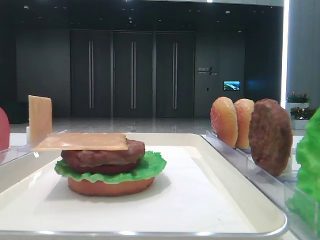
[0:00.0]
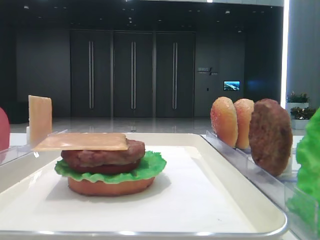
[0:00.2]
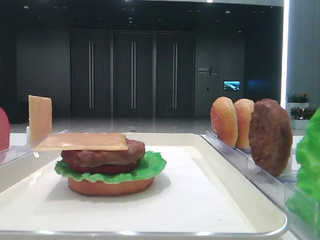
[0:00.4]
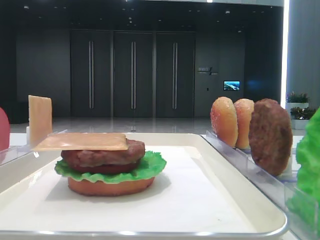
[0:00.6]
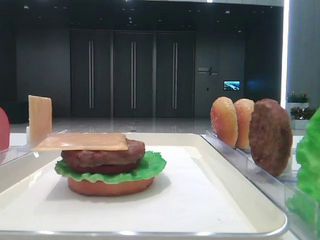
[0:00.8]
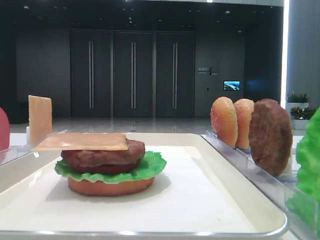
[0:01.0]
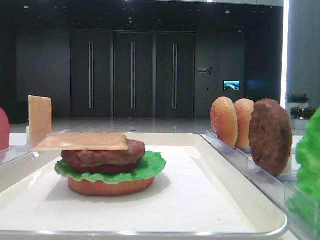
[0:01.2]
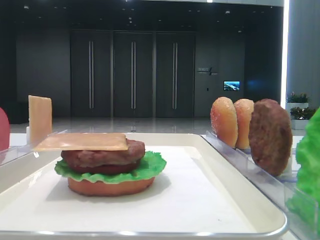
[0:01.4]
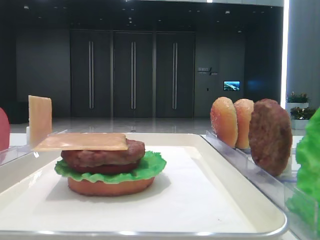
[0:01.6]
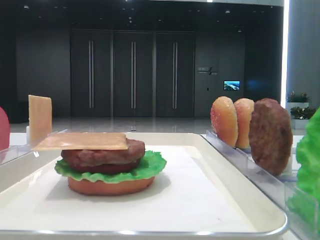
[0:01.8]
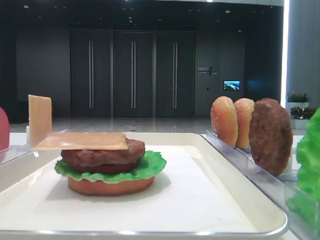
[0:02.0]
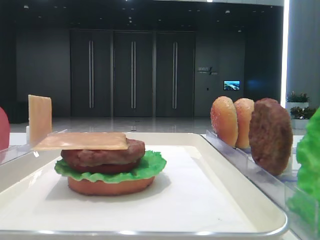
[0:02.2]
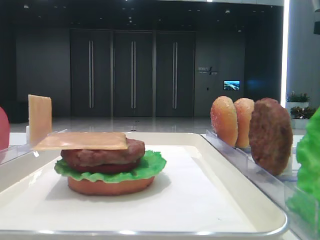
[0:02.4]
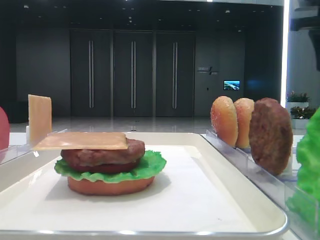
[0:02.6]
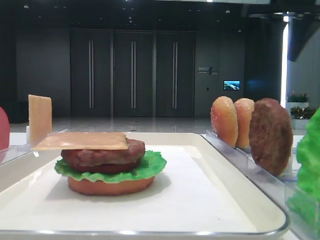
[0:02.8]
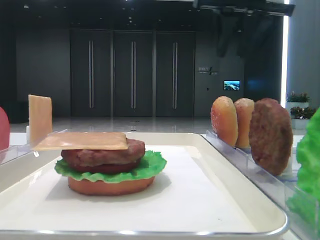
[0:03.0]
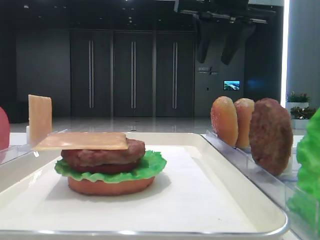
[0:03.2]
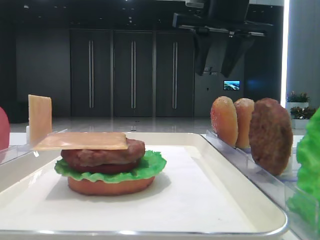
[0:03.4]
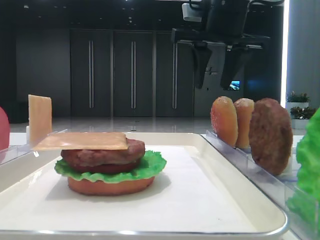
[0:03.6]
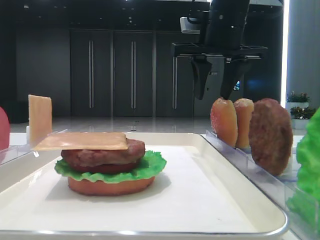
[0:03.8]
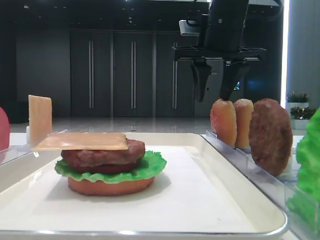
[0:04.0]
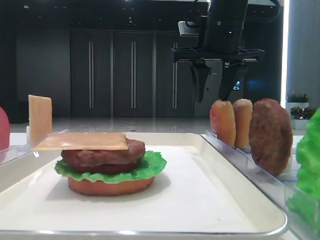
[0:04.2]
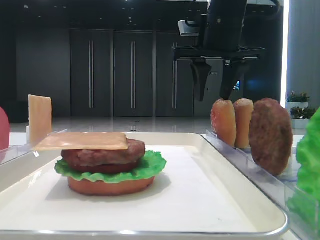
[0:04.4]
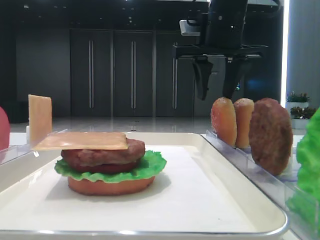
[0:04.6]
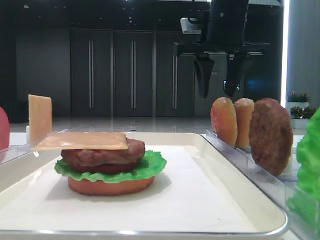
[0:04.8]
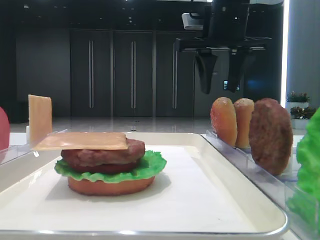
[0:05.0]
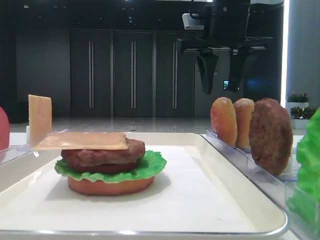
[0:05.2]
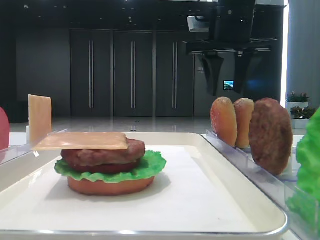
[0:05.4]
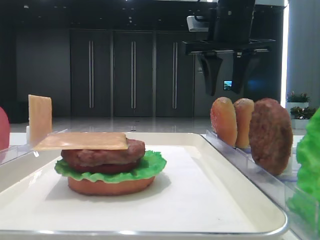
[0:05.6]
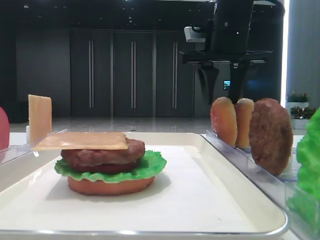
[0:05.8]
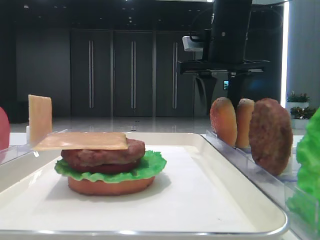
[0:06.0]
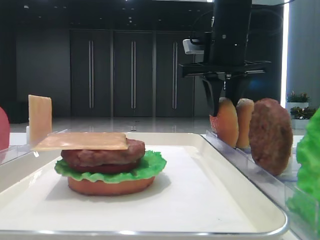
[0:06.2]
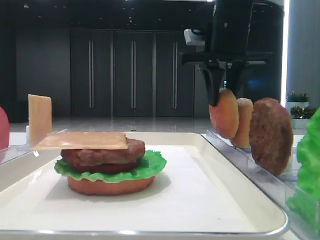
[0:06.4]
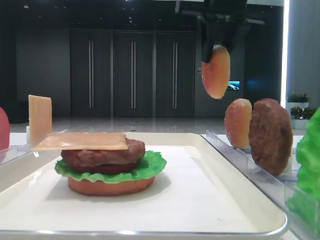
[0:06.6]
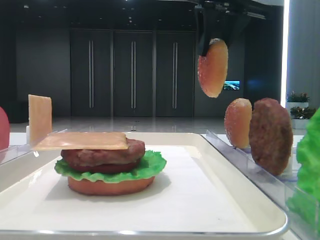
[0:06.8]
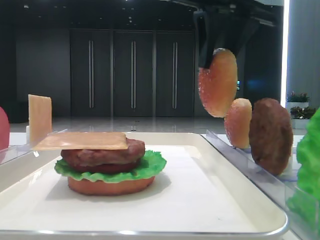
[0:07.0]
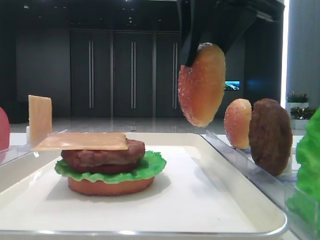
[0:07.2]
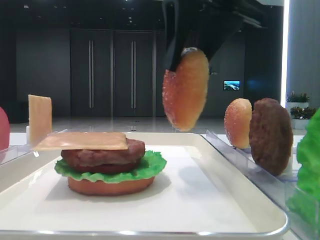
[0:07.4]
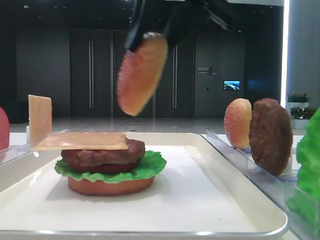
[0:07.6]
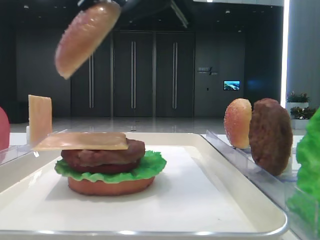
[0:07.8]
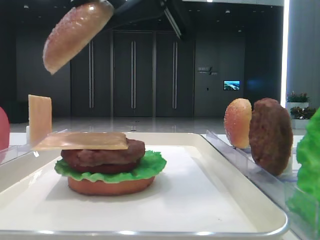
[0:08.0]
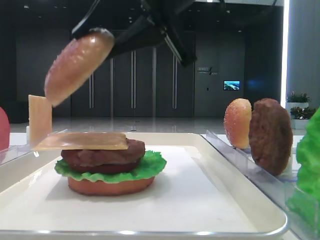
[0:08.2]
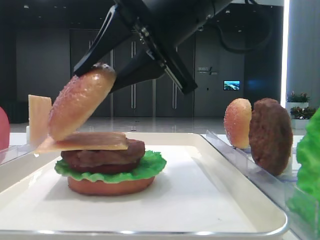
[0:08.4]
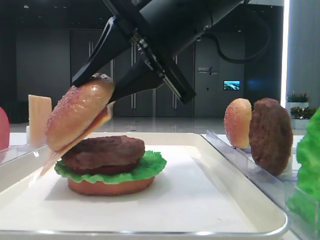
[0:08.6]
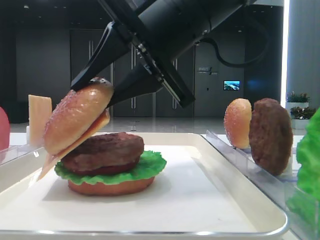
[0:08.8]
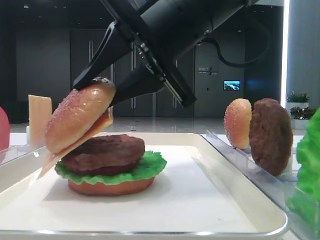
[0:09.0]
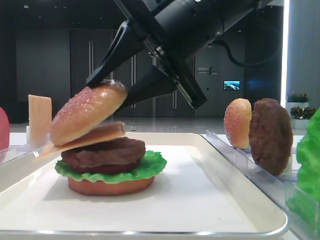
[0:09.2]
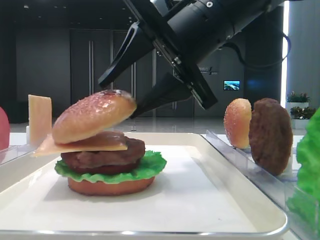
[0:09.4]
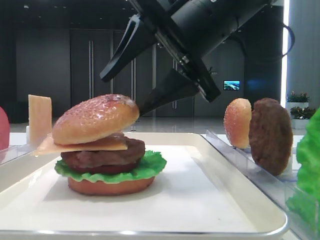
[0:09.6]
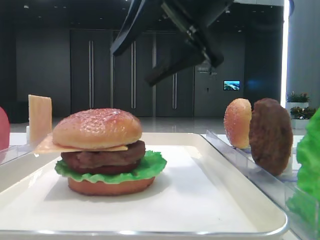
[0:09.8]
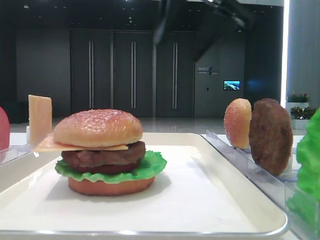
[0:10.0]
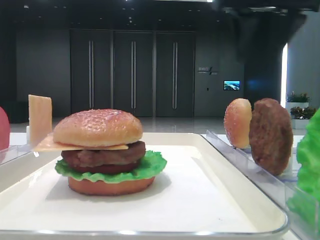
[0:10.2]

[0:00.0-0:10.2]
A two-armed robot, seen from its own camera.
Step, 0:00.0 to 0:06.2: Pick up the top bread slice with the right hand.
Step, 0:06.4 to 0:09.6: Place the top bread slice on the cheese with the right hand.
0:01.4 to 0:03.0: The right gripper moves forward and to the left, approximately 40 cm. Meanwhile the left gripper closes.
0:03.0 to 0:04.4: The right gripper travels downward by about 5 cm, and opens up.
0:04.4 to 0:05.8: The grippers move only a little.
0:05.8 to 0:07.2: The right gripper moves backward, roughly 15 cm, and closes.
0:07.2 to 0:08.8: The right gripper is displaced downward by about 5 cm.
0:08.8 to 0:10.2: The right gripper goes roughly 20 cm to the right, upward and forward, and opens.

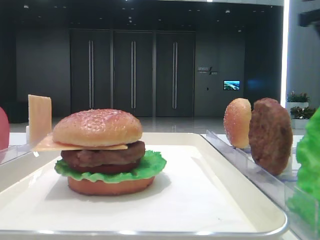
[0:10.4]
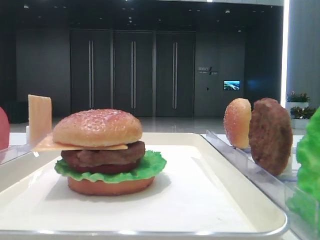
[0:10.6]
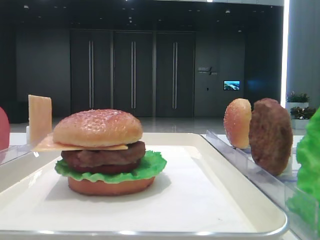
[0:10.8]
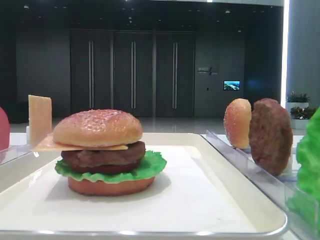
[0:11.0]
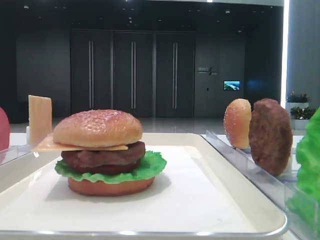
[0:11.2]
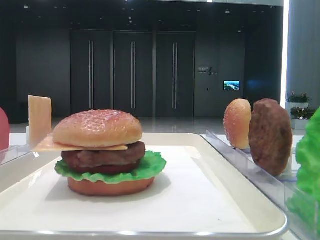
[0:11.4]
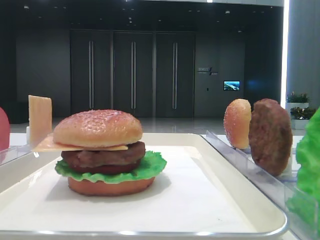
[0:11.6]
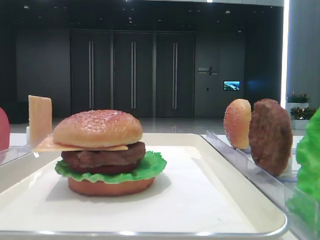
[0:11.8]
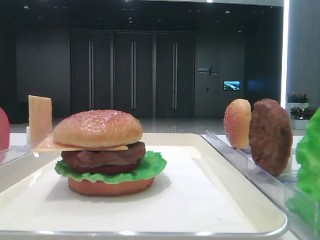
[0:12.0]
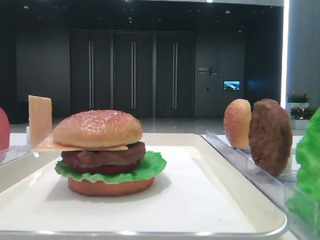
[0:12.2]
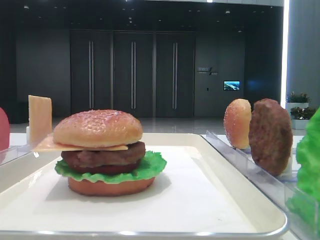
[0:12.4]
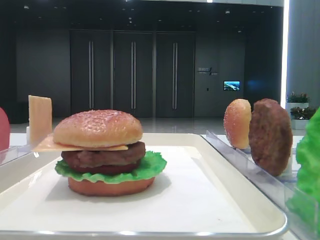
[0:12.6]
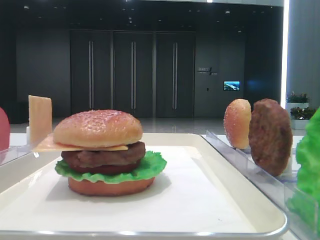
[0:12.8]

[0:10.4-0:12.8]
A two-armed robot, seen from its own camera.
0:10.4 to 0:11.6: The right gripper heads backward, covering approximately 35 cm.

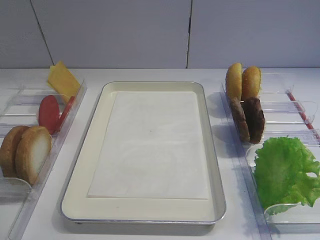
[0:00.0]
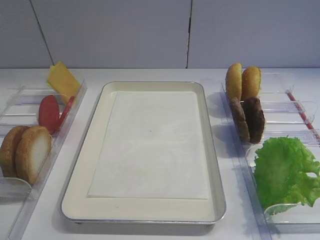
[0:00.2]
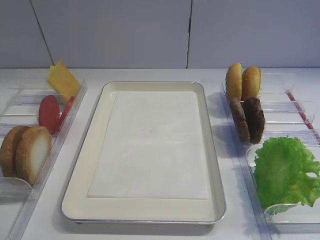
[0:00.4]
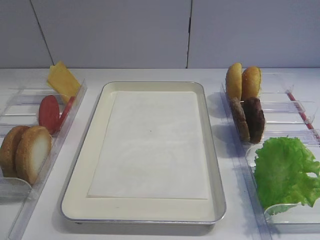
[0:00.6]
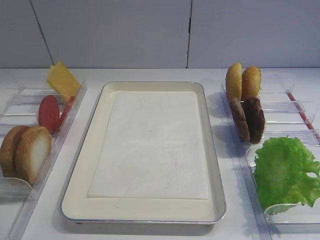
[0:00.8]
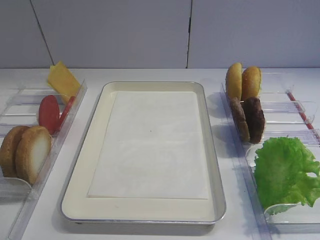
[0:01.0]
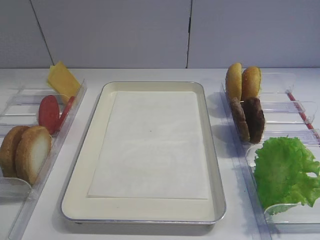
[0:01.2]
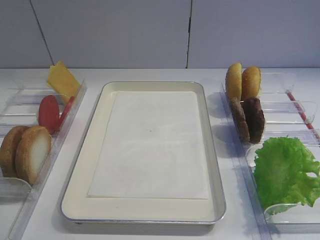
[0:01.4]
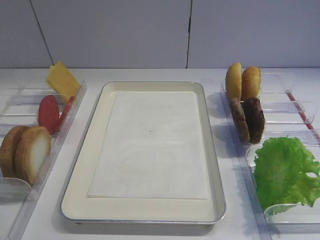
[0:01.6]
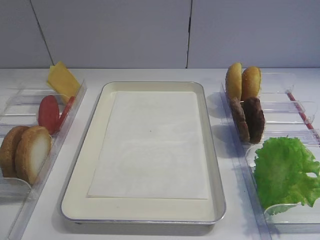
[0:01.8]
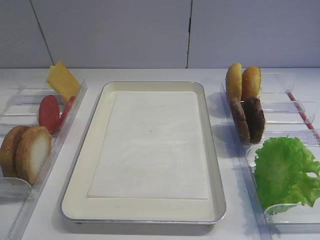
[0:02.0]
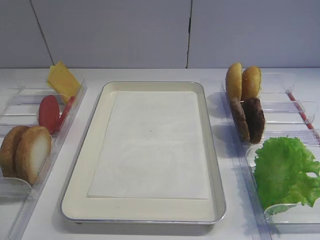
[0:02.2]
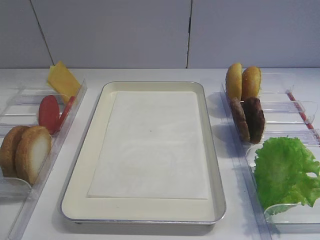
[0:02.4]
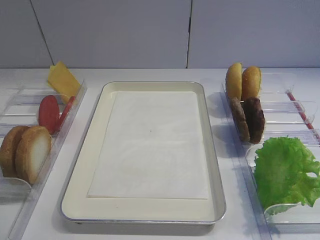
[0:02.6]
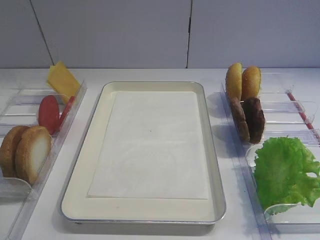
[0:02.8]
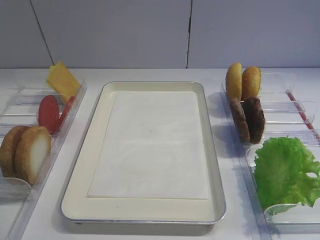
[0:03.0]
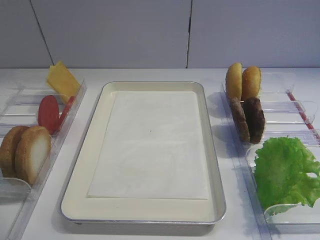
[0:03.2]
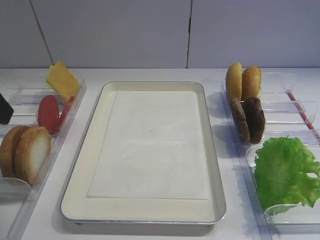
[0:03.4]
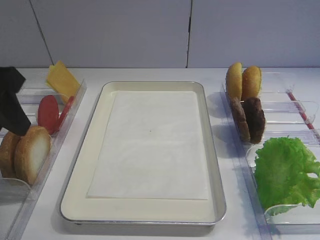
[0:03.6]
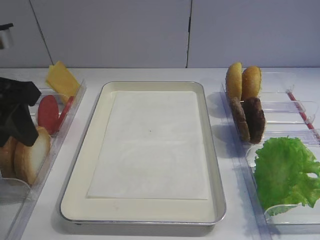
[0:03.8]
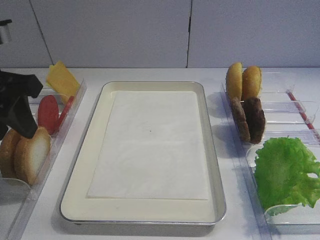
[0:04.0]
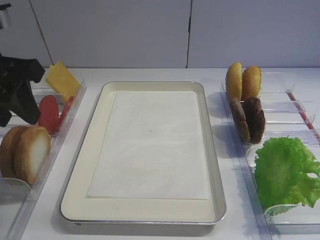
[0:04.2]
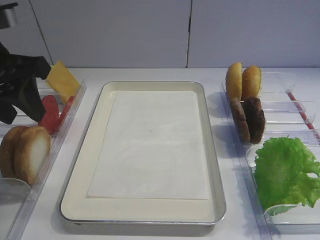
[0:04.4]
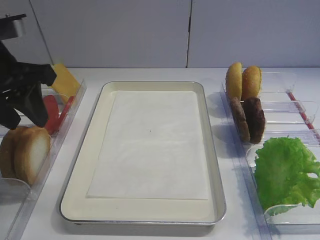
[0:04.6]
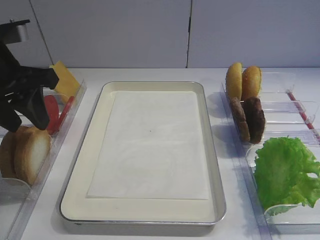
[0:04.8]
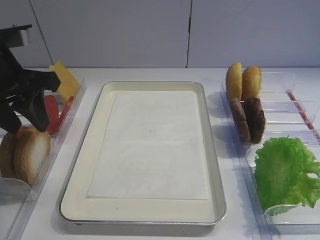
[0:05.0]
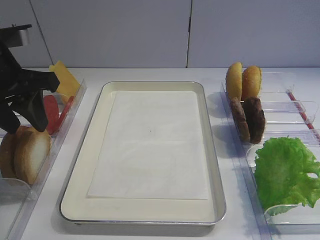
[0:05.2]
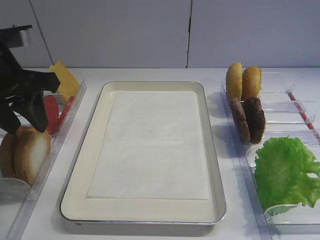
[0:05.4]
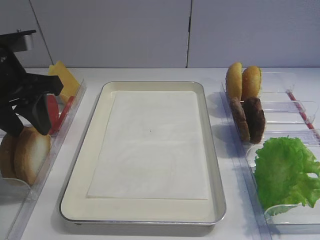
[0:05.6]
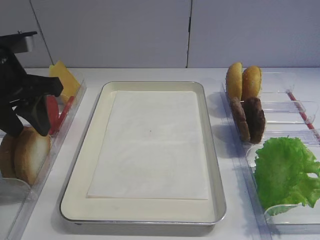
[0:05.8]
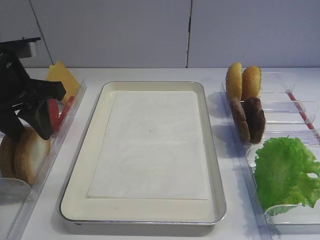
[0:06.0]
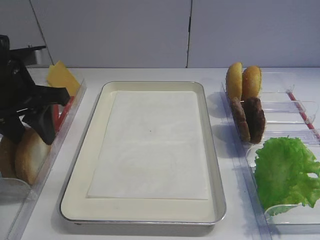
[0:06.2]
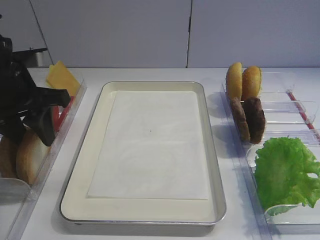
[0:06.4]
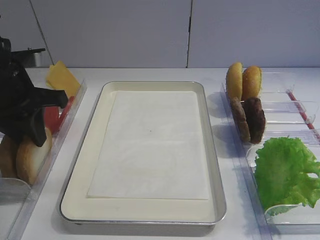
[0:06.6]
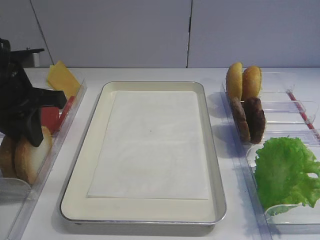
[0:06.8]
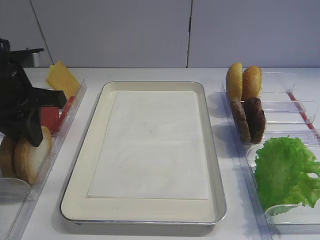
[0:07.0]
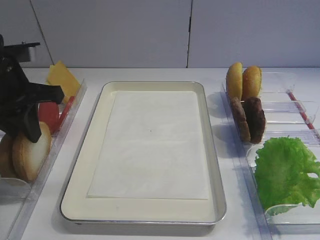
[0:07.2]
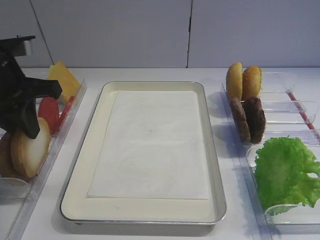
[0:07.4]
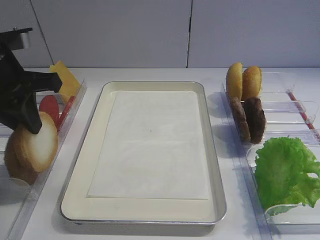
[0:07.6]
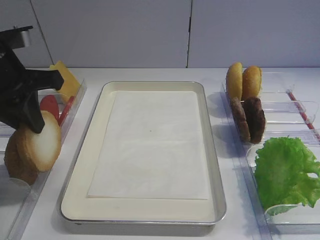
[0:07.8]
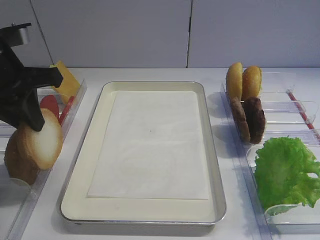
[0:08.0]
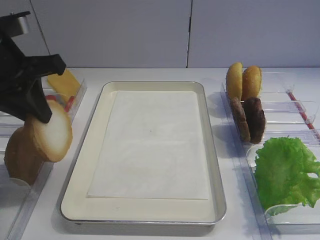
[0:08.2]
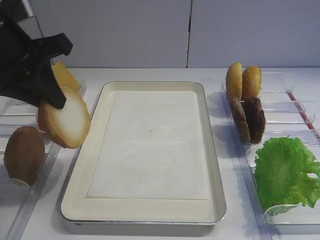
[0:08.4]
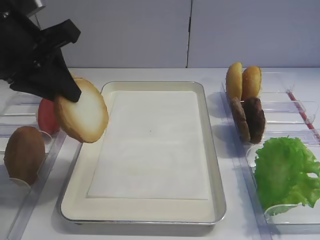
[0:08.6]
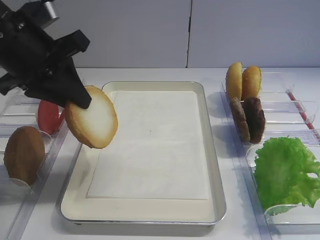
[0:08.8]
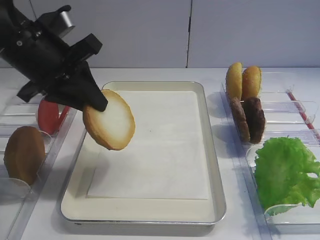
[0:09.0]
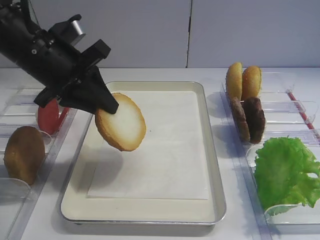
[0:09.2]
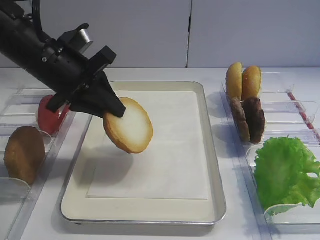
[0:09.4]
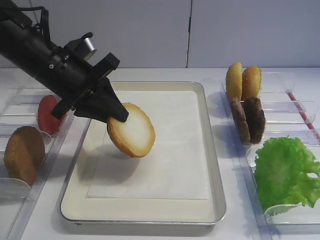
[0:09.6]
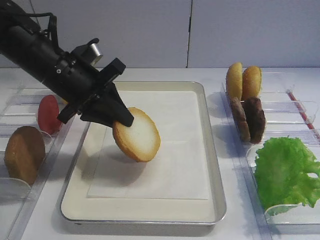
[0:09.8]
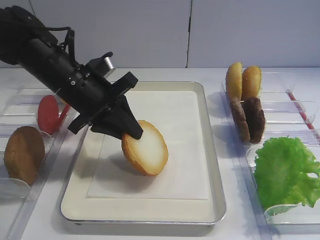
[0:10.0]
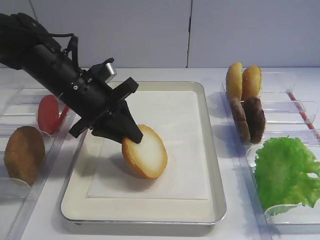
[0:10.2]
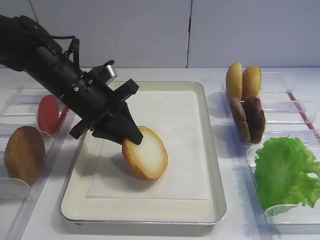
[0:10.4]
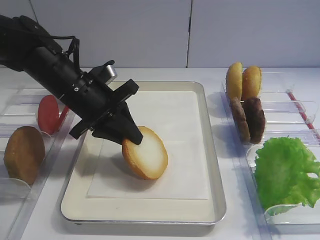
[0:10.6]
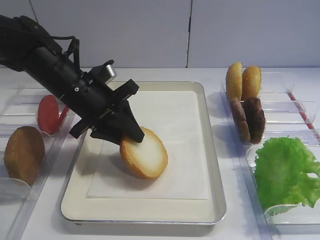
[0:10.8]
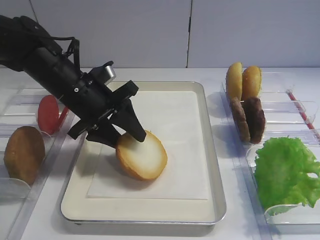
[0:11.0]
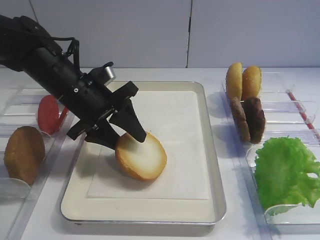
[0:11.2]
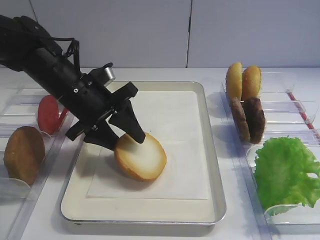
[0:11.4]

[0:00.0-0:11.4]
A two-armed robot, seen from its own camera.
Step, 0:00.0 to 0:08.0: Pick up the bread slice with the left gripper.
0:02.8 to 0:04.2: The left gripper is displaced forward by roughly 15 cm.
0:04.2 to 0:05.6: The left gripper moves roughly 5 cm.
0:05.6 to 0:07.2: The left gripper closes.
0:07.2 to 0:08.6: The left gripper travels upward by some 5 cm.
0:08.6 to 0:10.0: The left gripper is displaced downward, to the right and forward by some 15 cm.
0:10.0 to 0:11.4: The left gripper opens up.
